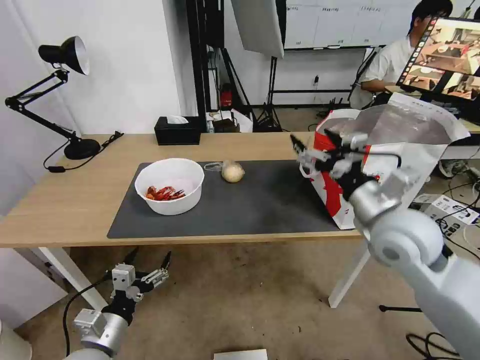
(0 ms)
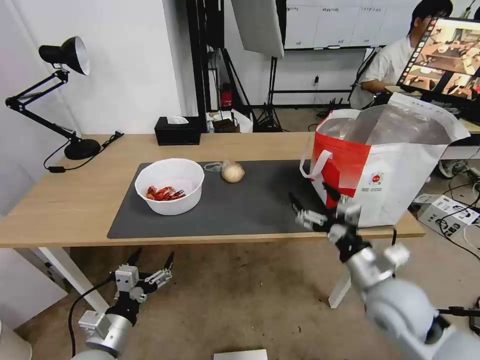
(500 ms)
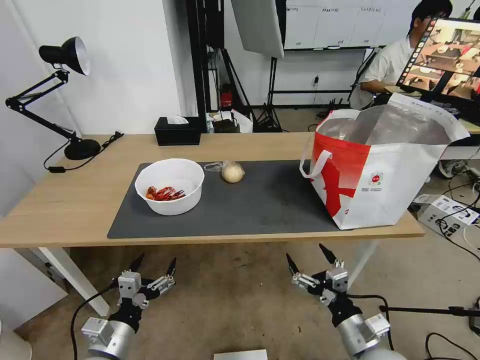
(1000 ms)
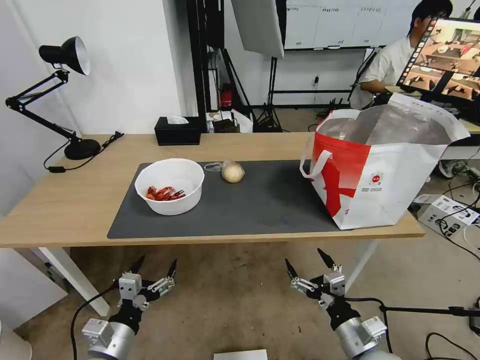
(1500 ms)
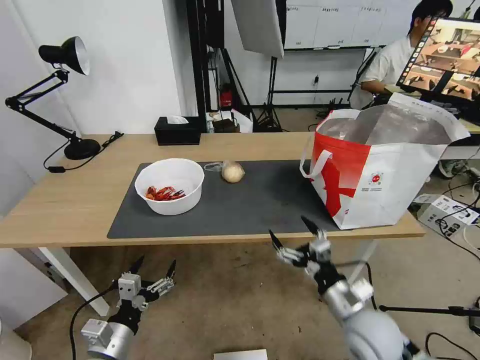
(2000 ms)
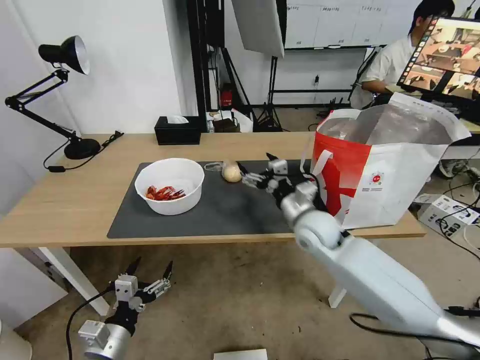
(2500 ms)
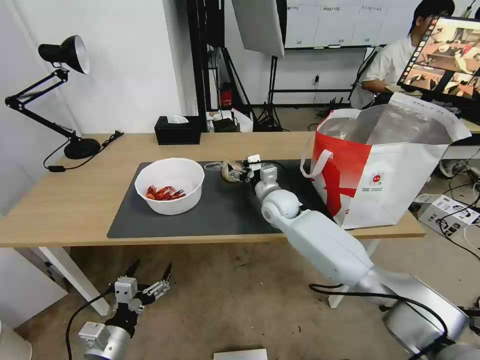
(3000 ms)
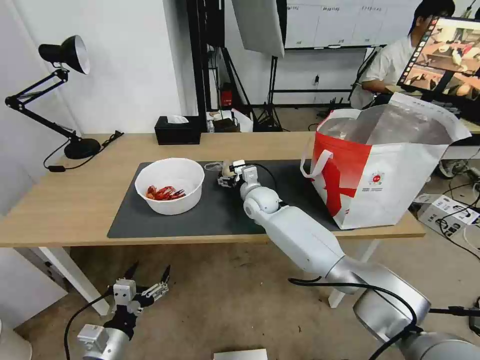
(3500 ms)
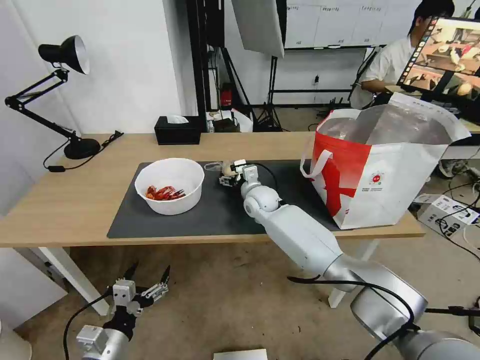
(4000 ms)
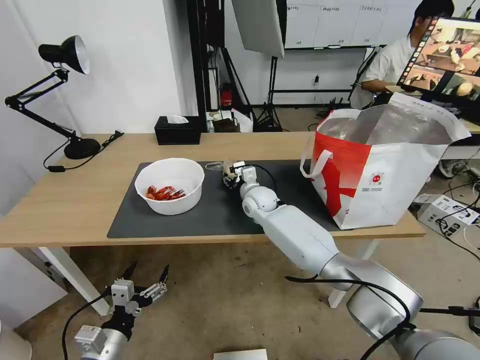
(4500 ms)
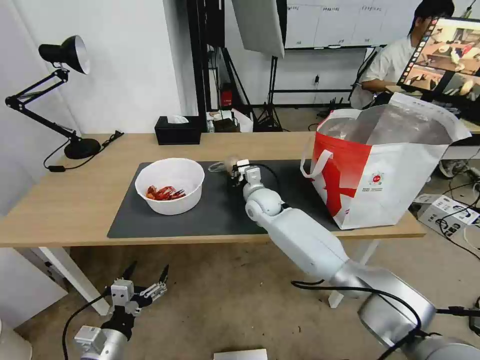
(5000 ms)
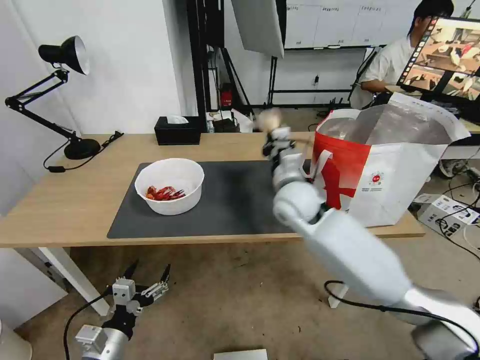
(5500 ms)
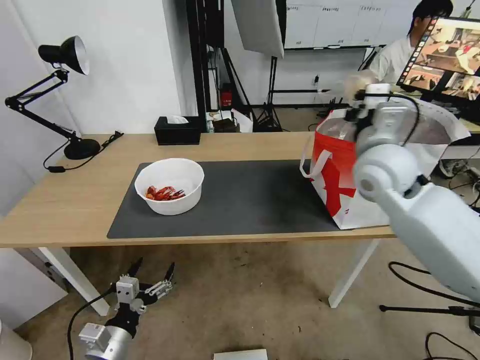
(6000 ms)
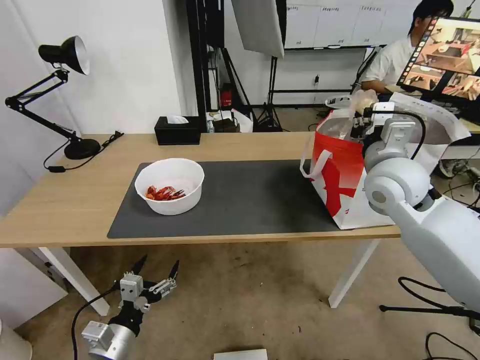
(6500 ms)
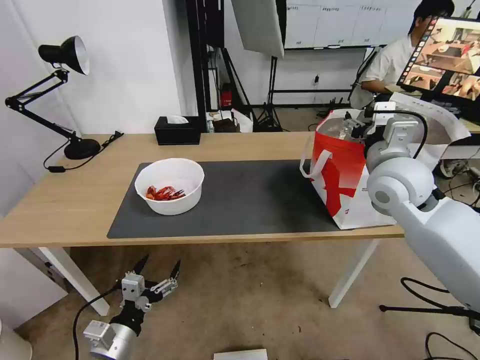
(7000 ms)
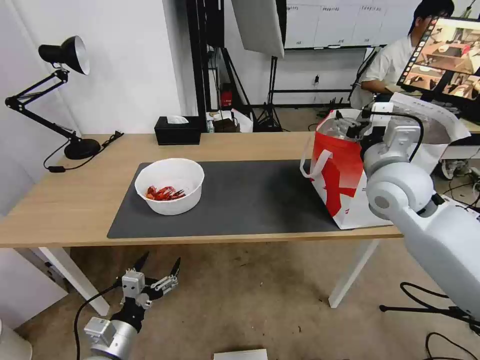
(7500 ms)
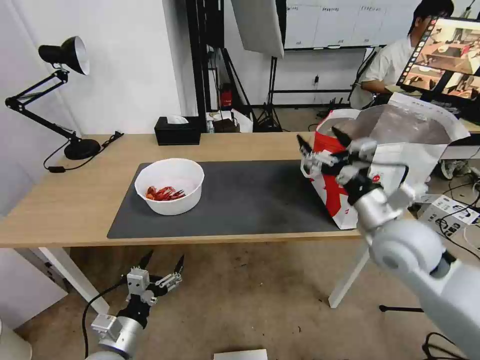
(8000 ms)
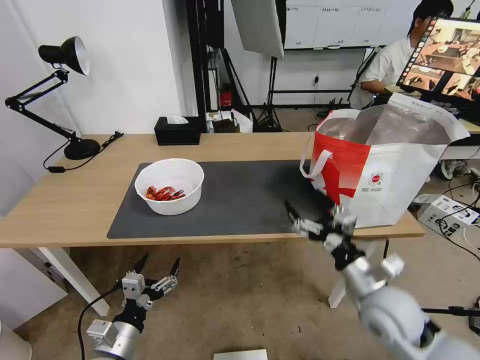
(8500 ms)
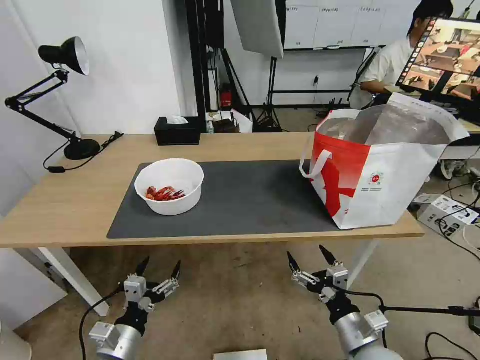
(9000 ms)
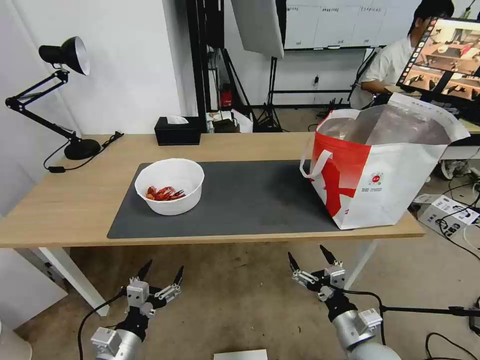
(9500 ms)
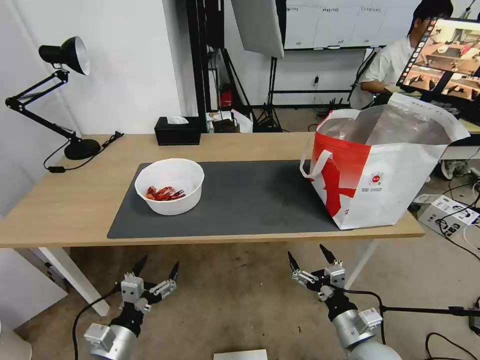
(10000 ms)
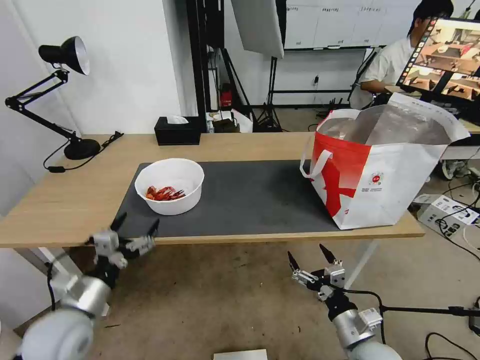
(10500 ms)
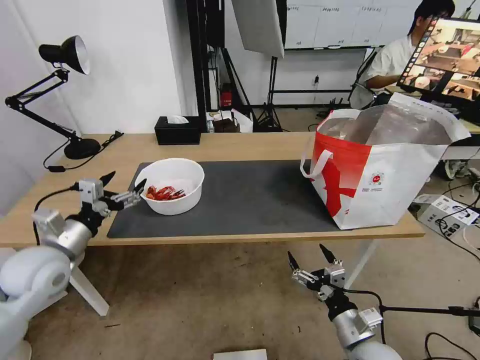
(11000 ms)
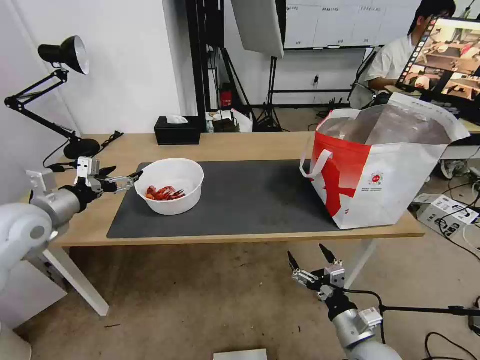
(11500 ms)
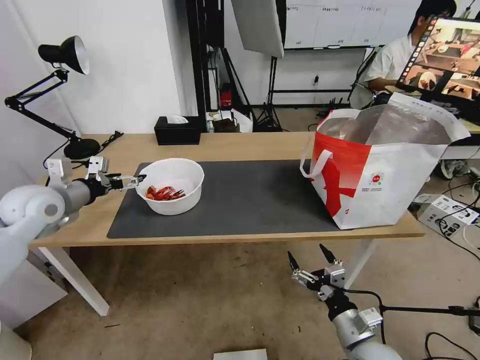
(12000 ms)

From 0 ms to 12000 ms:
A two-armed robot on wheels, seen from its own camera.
Task of the whole recording: Pick up the trash from the table and place it into the takeout bag.
From 0 ms to 2000 ms: The right gripper moves downward and backward, roughly 20 cm.
From 2000 ms to 4000 ms: The right gripper moves forward and to the left, roughly 40 cm.
From 4000 ms to 6000 ms: The right gripper goes roughly 30 cm upward, to the right and backward, and closes up.
From 6000 ms to 8000 ms: The right gripper is displaced backward and downward by about 10 cm, and opens up.
From 8000 ms to 10000 ms: The right gripper travels downward and backward by about 30 cm.
From 10000 ms to 12000 ms: The left gripper travels forward, upward and to the left by about 35 cm.

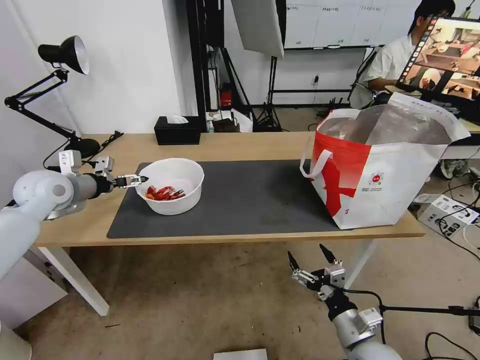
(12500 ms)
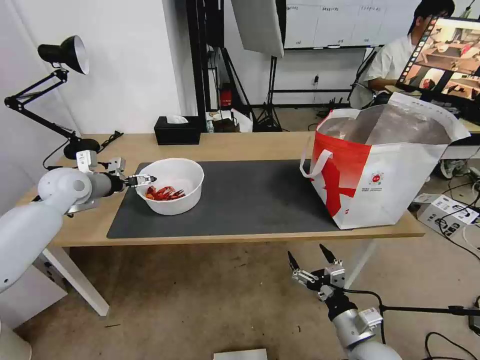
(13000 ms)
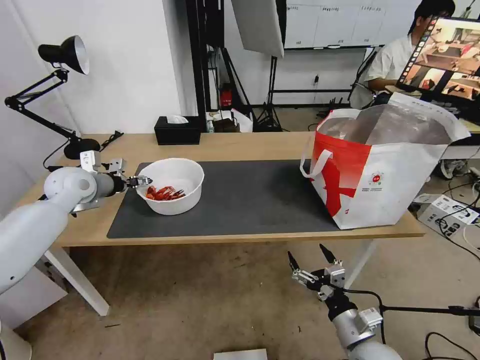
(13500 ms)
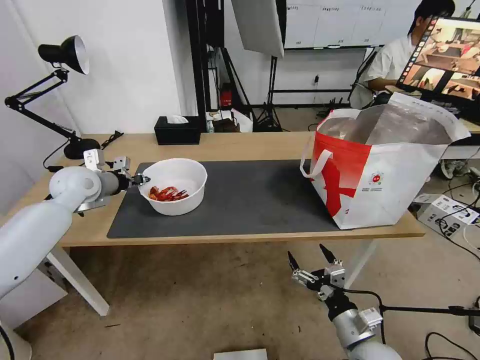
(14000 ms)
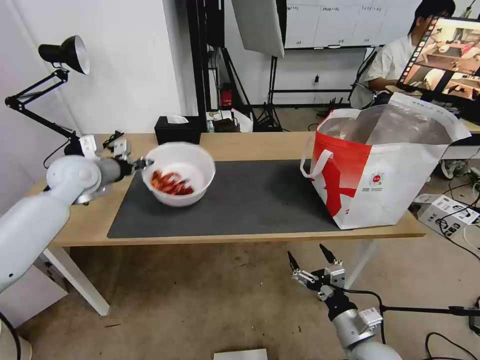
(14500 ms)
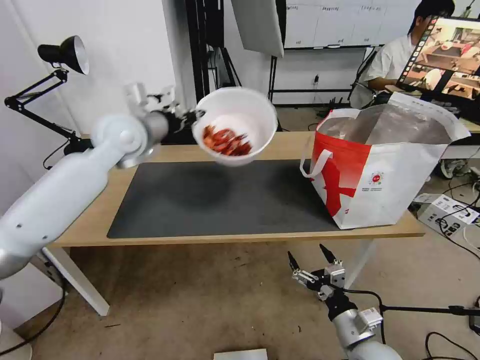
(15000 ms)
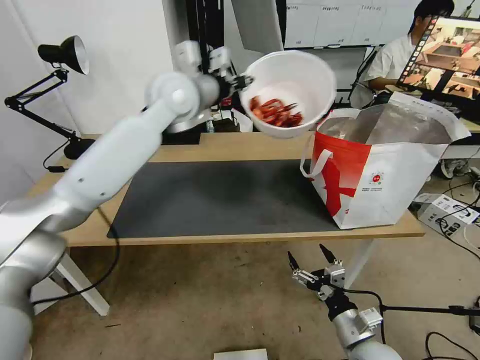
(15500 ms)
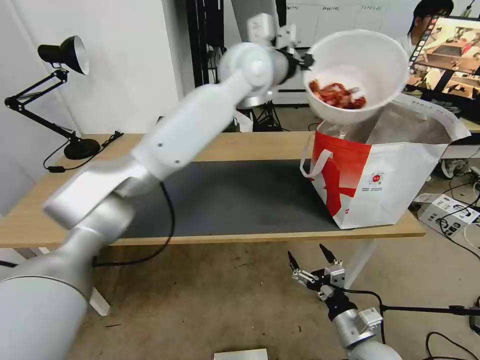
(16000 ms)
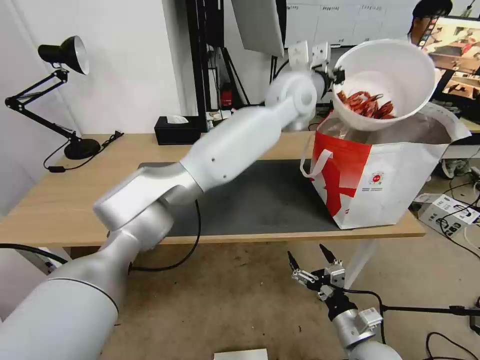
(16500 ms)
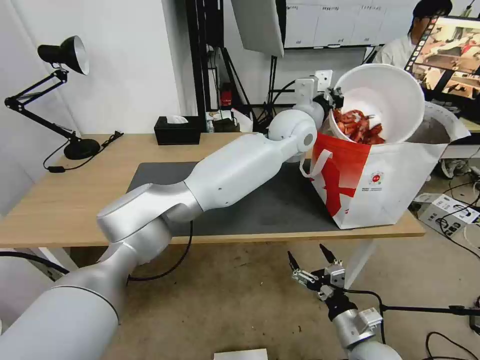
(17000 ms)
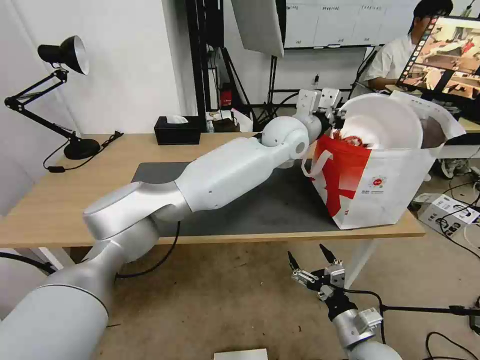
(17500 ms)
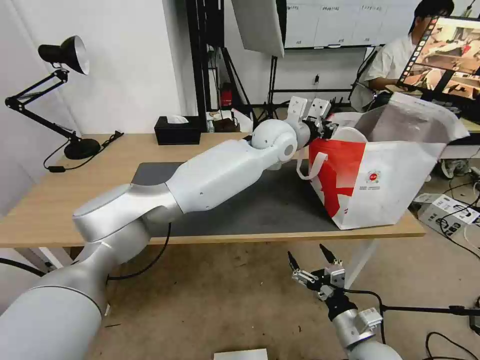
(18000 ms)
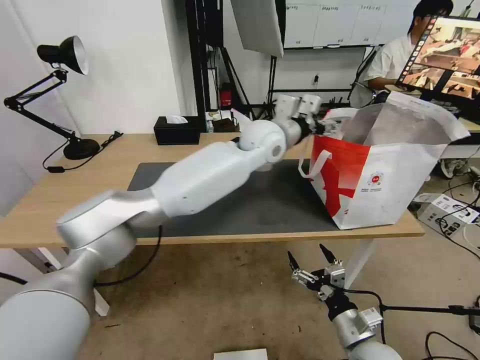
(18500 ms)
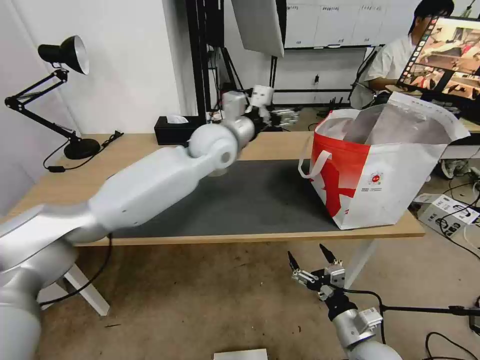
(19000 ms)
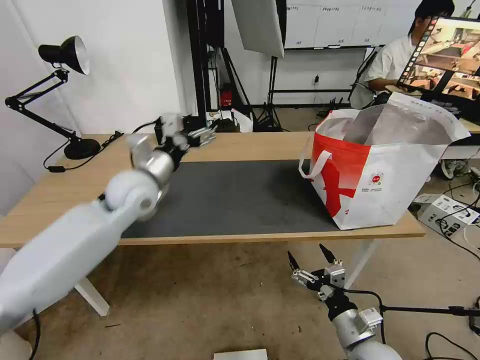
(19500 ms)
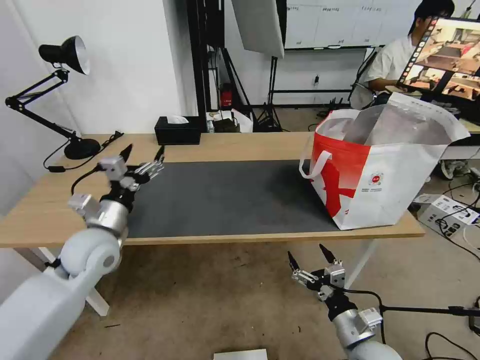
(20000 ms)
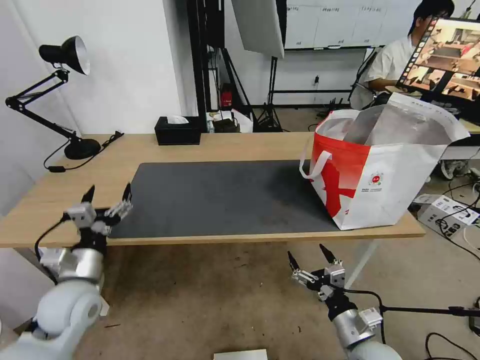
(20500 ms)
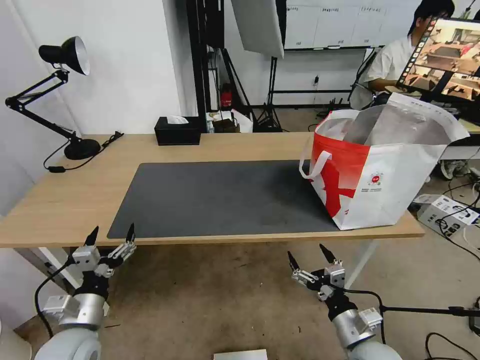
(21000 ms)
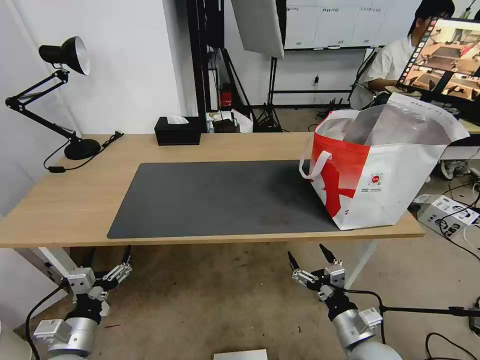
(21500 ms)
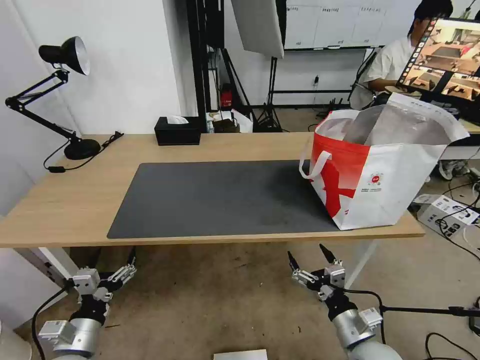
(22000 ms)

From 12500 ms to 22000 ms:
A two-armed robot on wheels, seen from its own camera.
Task of the whole recording: Pick up the trash from the table and place it into the takeout bag.
From 12500 ms to 14500 ms: The left gripper heads to the right, covering some 5 cm, and closes.
From 14500 ms to 16500 ms: The left gripper heads to the right, covering some 50 cm.
From 16500 ms to 18000 ms: The left gripper heads downward, covering some 10 cm.
From 18000 ms to 20000 ms: The left gripper moves to the left and backward, approximately 40 cm, and opens its fingers.
From 20000 ms to 22000 ms: The left gripper is displaced backward and downward by some 25 cm.

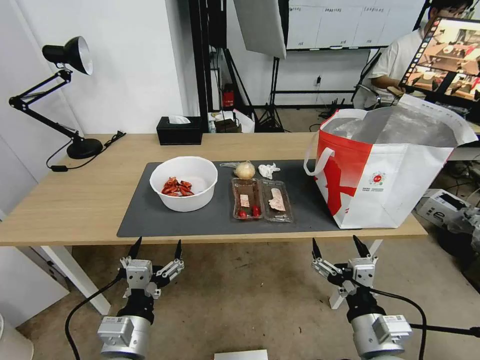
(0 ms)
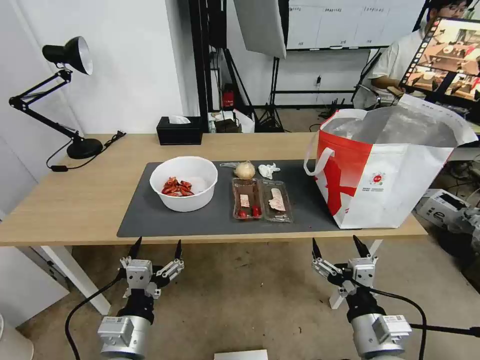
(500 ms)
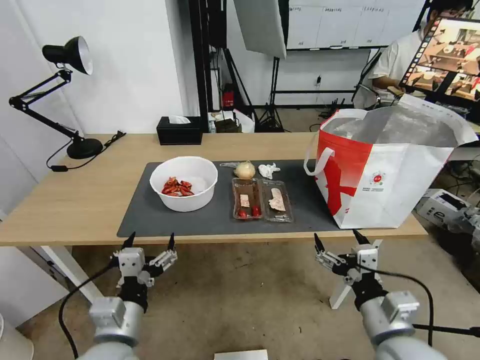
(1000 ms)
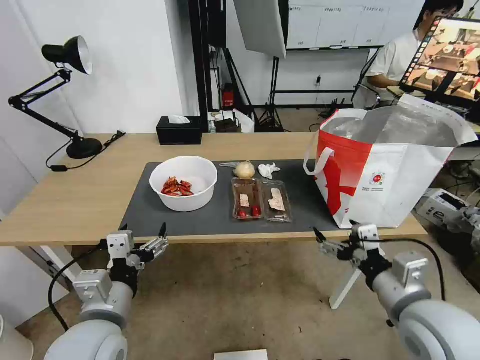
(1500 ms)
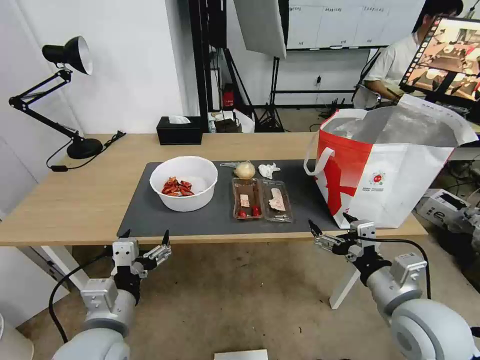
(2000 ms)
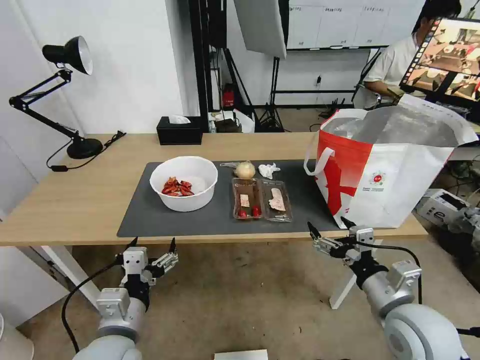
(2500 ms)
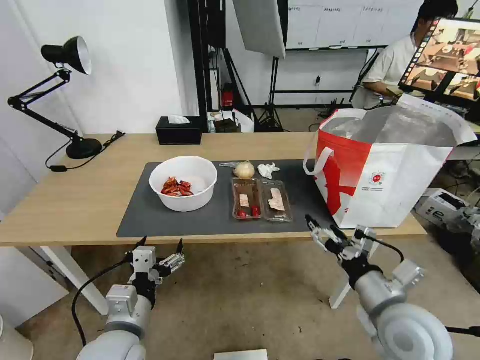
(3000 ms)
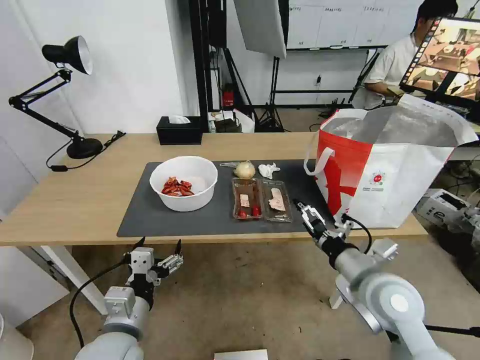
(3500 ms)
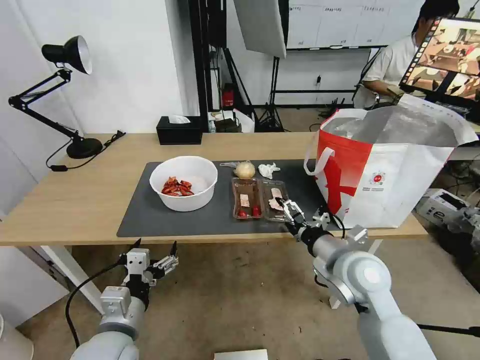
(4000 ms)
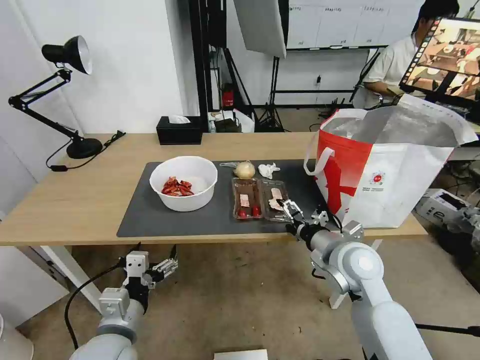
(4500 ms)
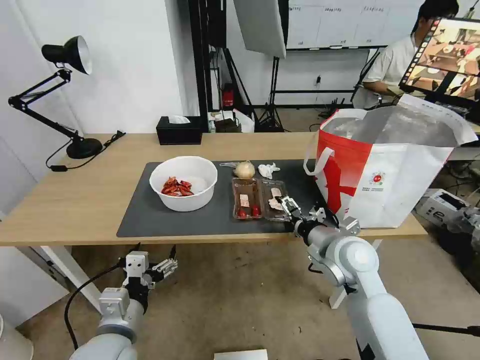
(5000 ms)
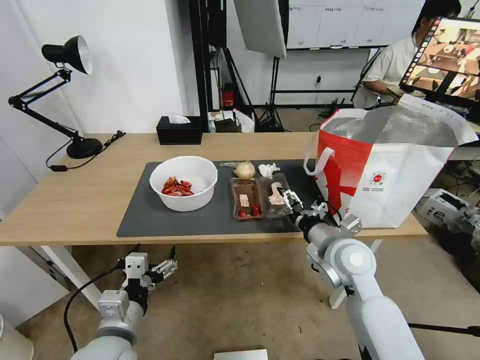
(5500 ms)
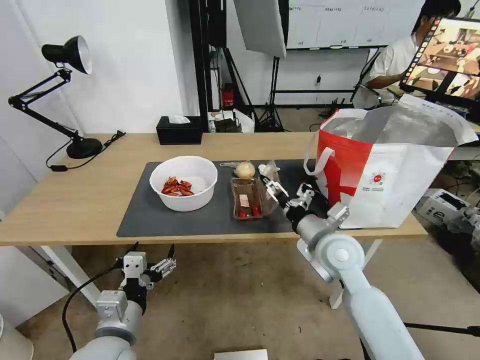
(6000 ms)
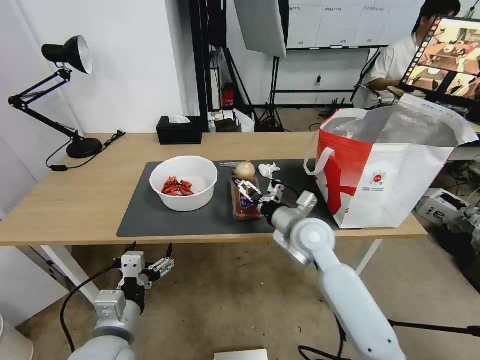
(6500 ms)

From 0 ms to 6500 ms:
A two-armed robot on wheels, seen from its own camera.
Task of the whole recording: Pick up the trash from the table and place it into the takeout bag.
From 2000 ms to 4500 ms: The right gripper is displaced forward and to the left by some 15 cm.
From 4500 ms to 6500 ms: The right gripper moves to the left and forward, approximately 10 cm.
